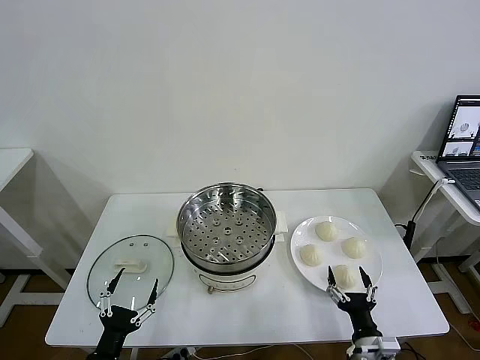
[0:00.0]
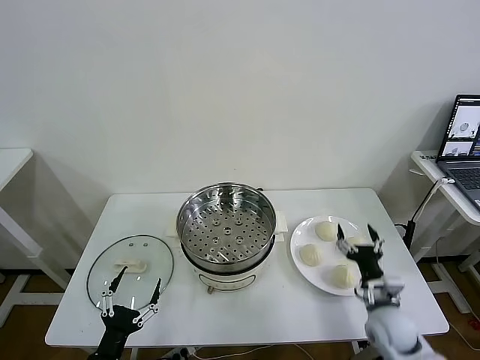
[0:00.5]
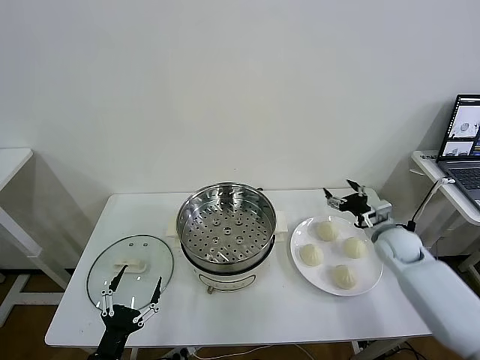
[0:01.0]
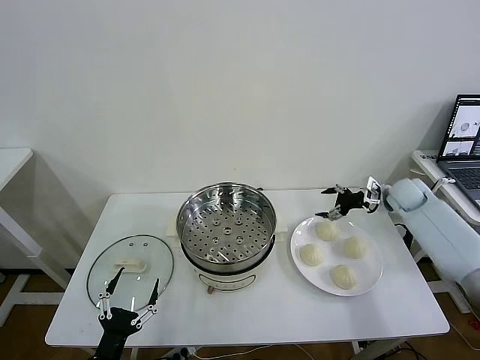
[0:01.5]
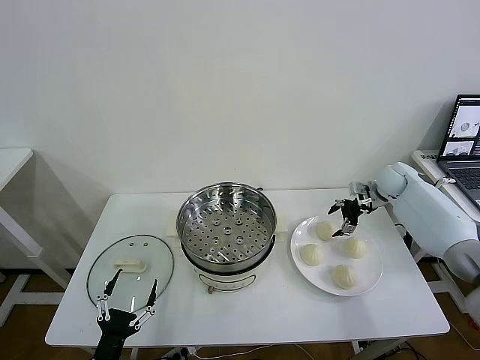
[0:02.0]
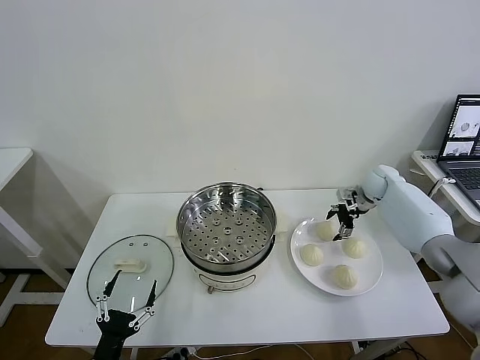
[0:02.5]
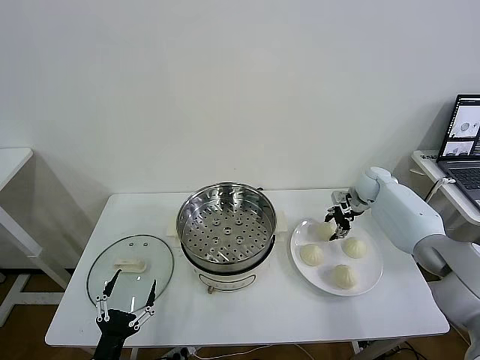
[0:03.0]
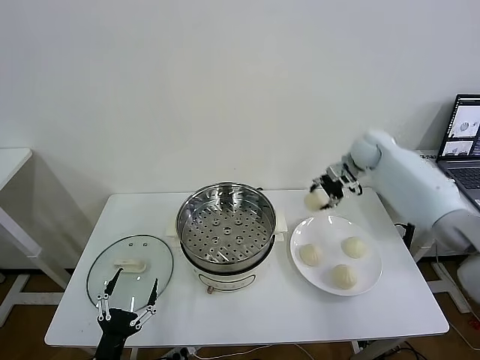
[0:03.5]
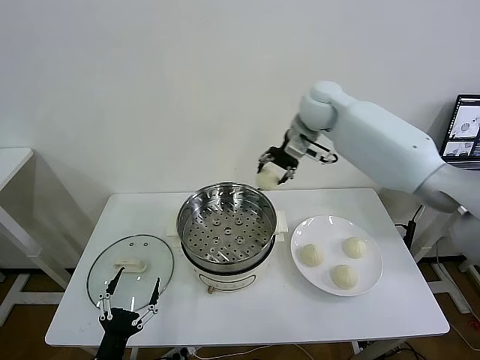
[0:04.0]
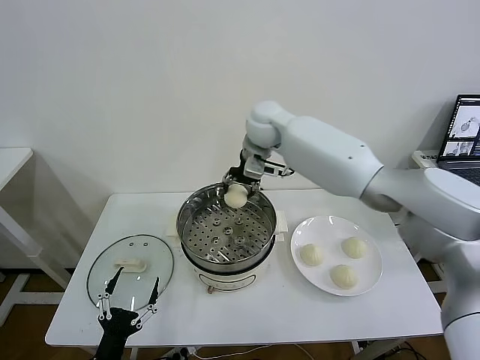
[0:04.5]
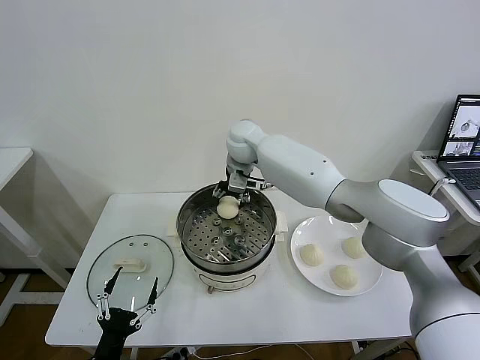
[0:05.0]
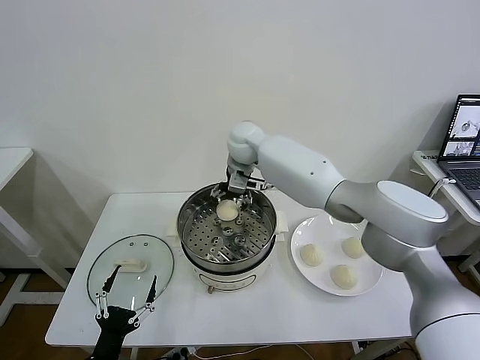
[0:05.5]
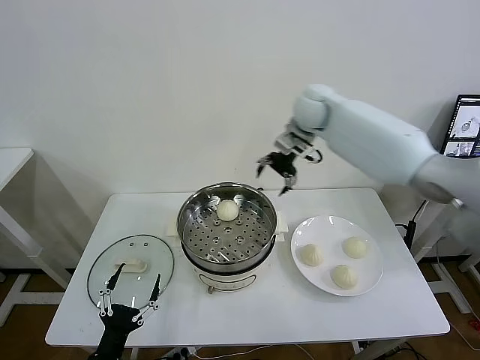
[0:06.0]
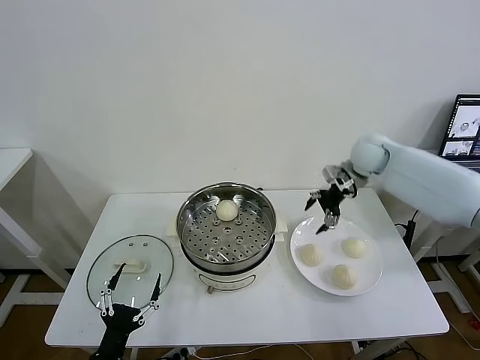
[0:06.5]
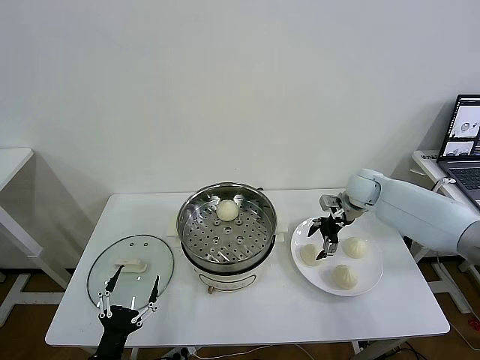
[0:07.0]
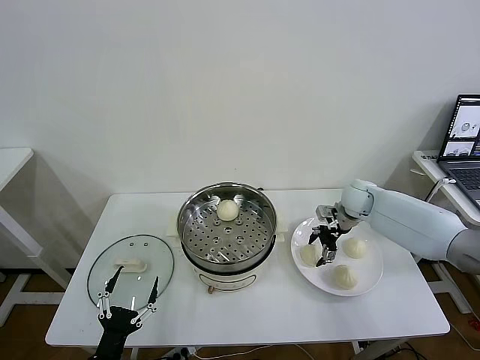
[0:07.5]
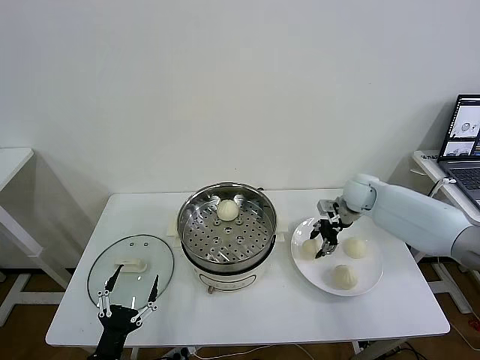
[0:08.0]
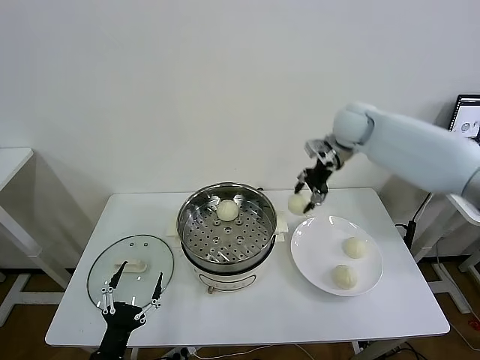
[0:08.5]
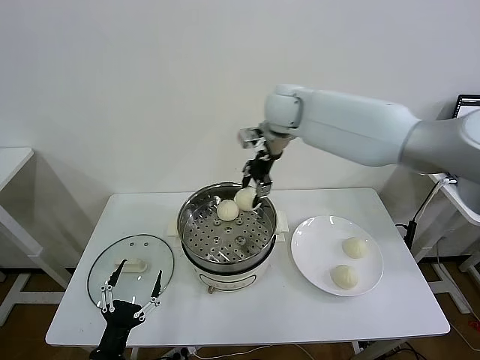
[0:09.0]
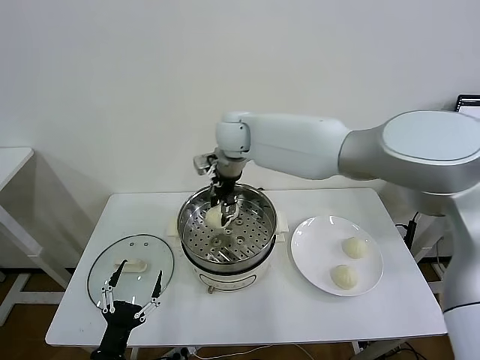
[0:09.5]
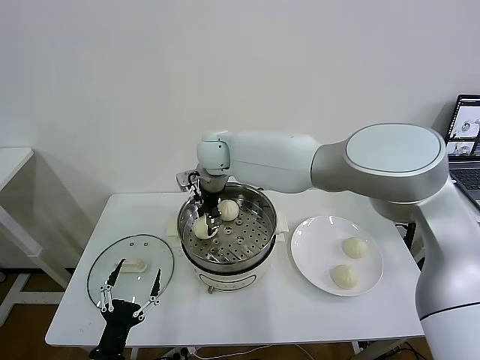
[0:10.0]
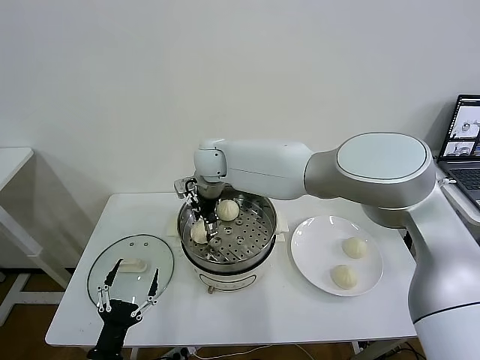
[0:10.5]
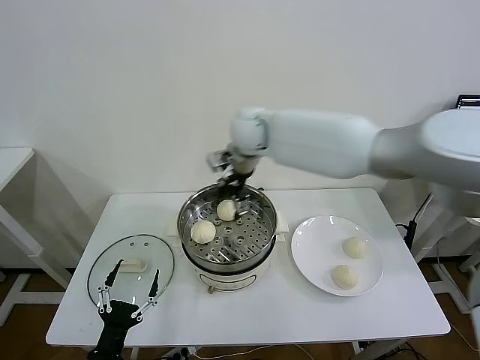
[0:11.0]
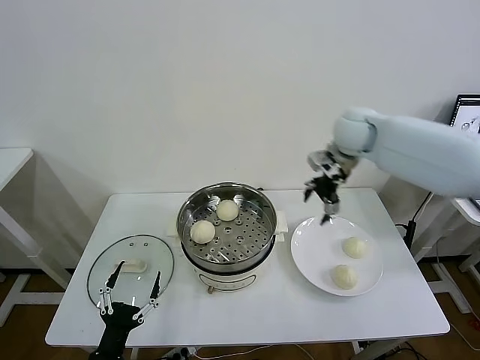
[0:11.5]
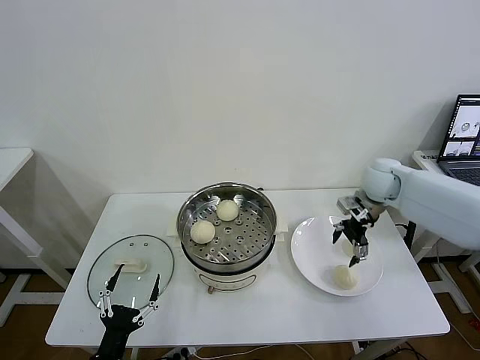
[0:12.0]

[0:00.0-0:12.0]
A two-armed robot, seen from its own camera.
Task of the whole recording: take steamed baozi put them in steamer then cover it.
Step, 0:00.0 to 0:02.5: Grasp the baozi in the plate with right gripper.
Step, 0:03.0 to 0:05.0: Place the baozi on the steamer with right gripper.
Step, 0:05.5 to 0:07.5: Grasp the baozi in the plate with right gripper.
Step, 0:08.0 to 0:10.5: Place the baozi on the steamer with right gripper.
0:02.0 to 0:04.0: The right gripper moves to the left and upward, some 35 cm, and closes.
0:04.0 to 0:06.0: The right gripper goes to the left and returns, some 15 cm each way, and opens its fingers.
0:06.0 to 0:08.0: The right gripper shifts approximately 20 cm downward and to the right, and closes up.
0:08.0 to 0:10.0: The right gripper travels to the left by some 40 cm.
0:10.0 to 0:12.0: The right gripper goes about 40 cm to the right, and opens.

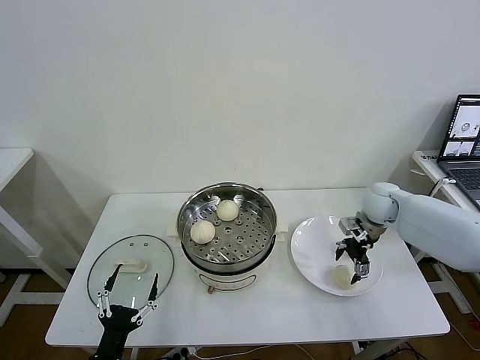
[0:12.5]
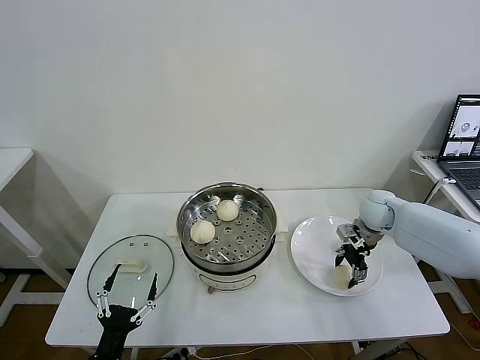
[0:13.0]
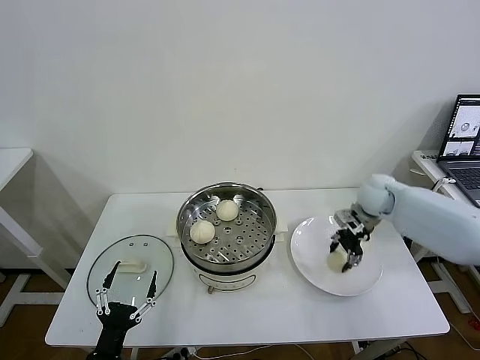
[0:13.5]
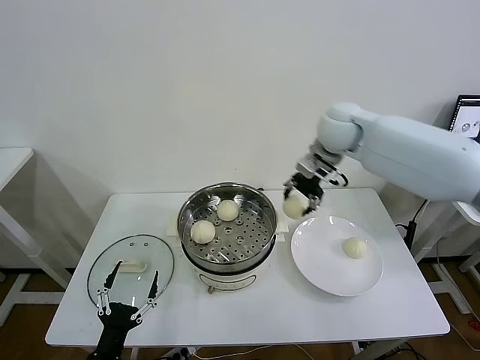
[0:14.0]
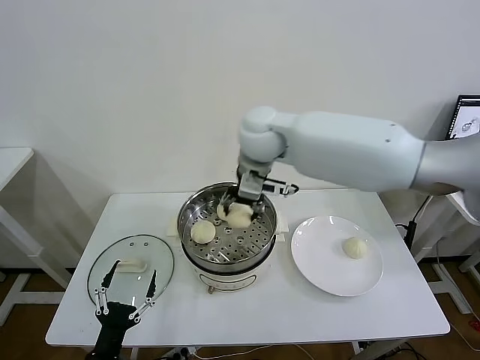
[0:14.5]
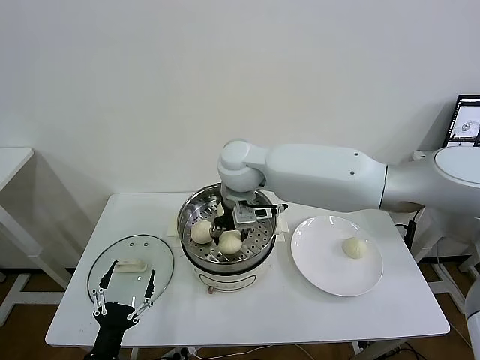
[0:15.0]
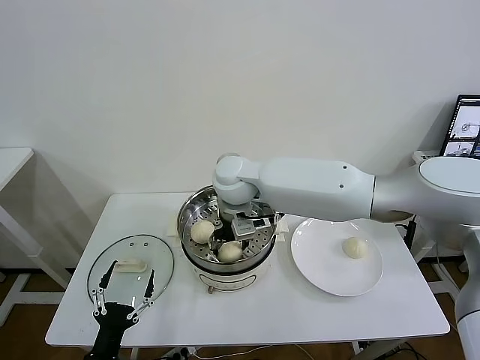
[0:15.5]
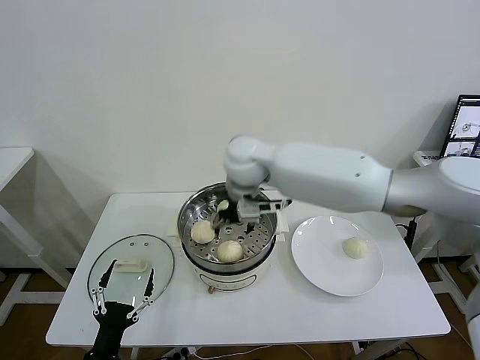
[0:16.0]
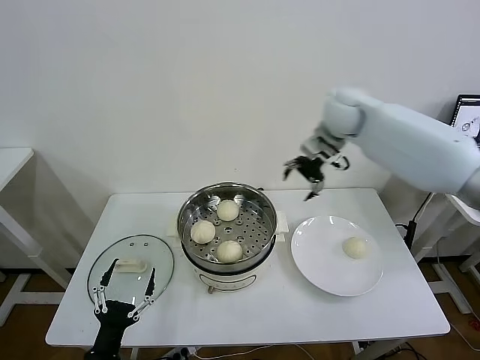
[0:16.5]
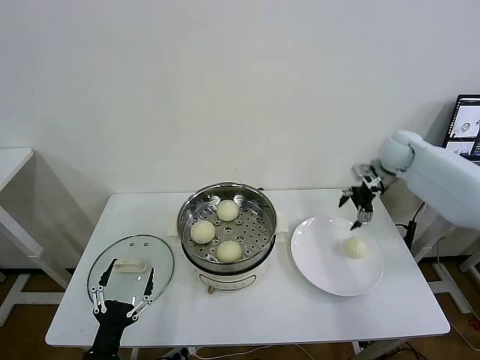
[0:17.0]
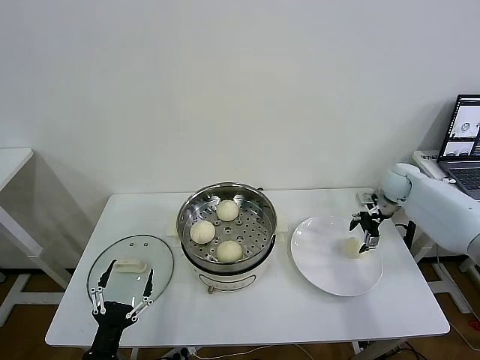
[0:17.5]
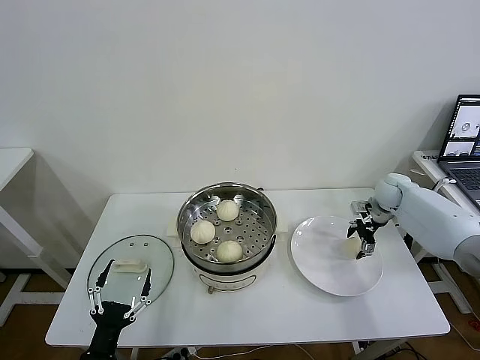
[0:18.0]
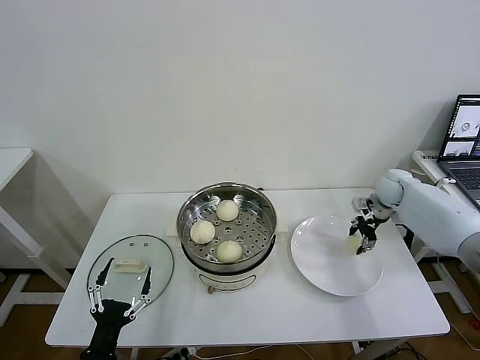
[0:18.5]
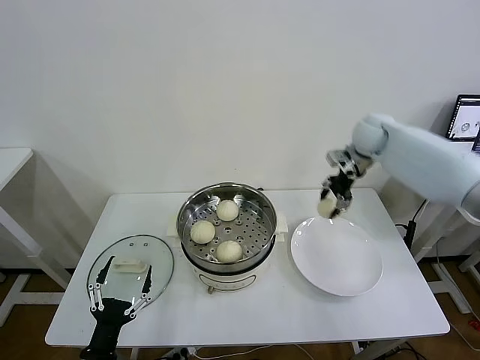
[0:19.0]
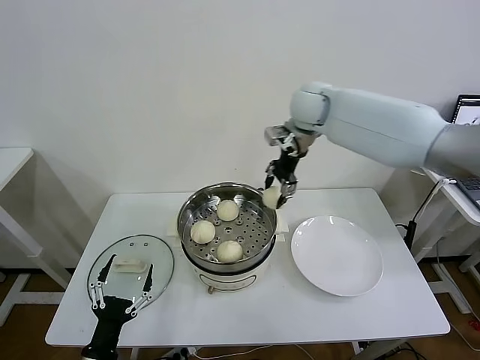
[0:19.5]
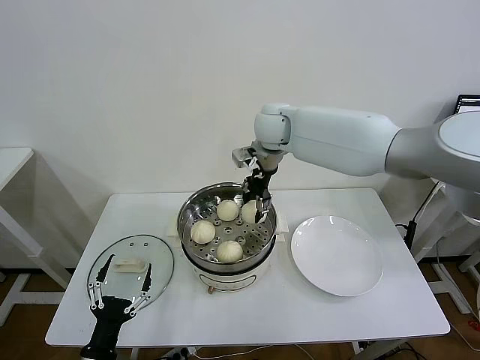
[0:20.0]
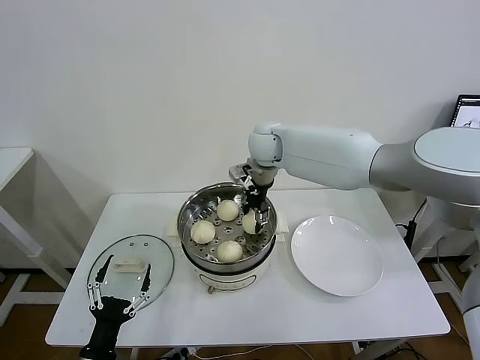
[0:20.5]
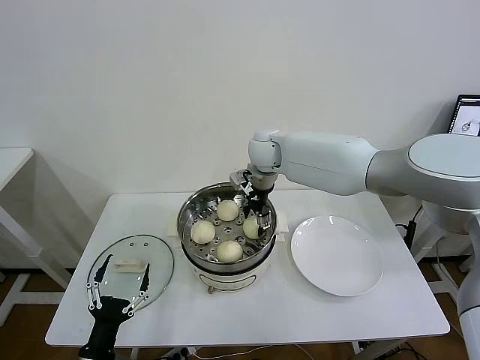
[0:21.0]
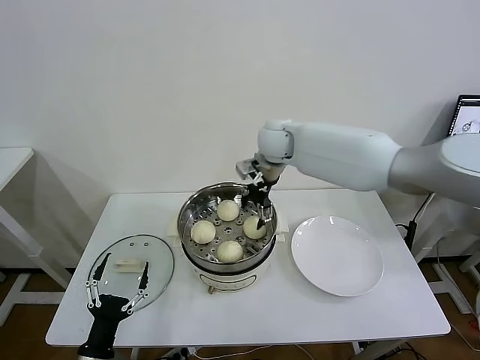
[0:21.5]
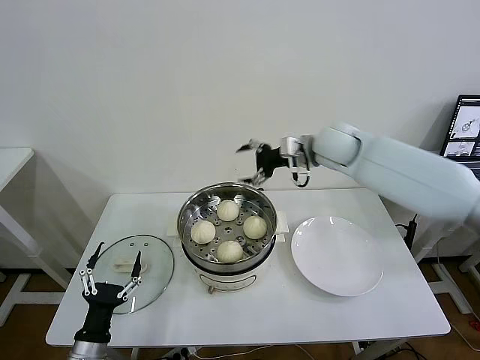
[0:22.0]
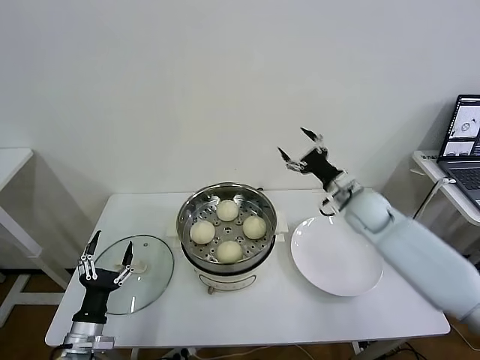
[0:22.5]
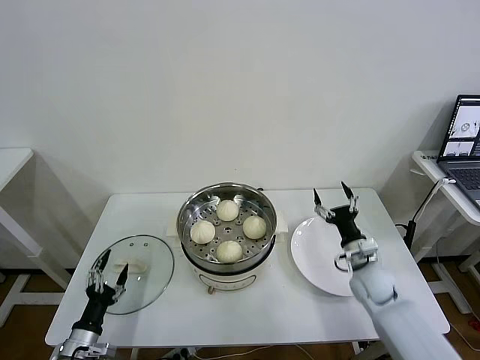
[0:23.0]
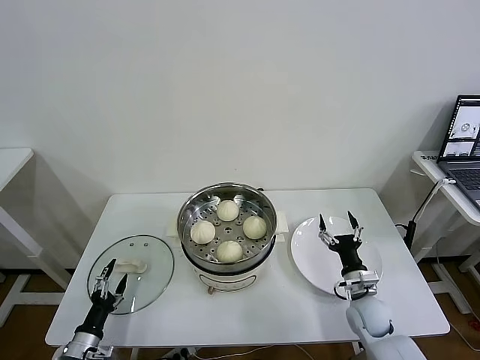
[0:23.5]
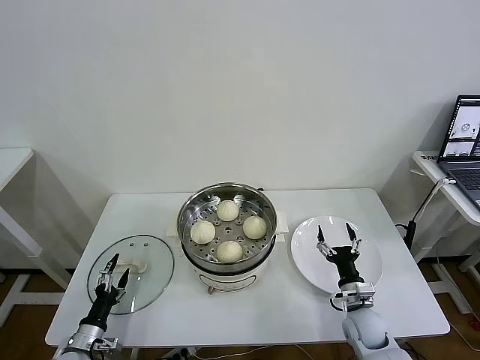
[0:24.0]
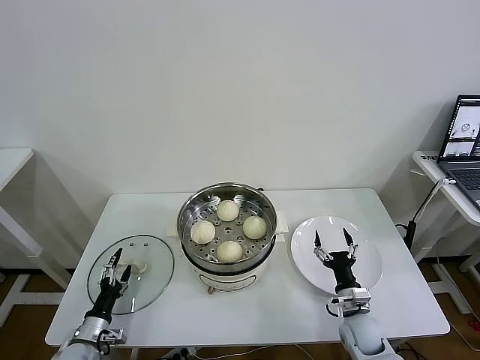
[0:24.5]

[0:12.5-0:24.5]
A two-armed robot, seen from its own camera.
Task of the whole recording: take steamed baozi put them in steamer then cover it.
Step, 0:13.5 to 0:15.5: Place the baozi on the steamer with right gripper.
Step, 0:16.0 to 0:18.0: Grasp the baozi in the plate with right gripper.
Step, 0:18.5 to 0:21.0: Place the baozi on the steamer with right gripper.
0:12.5 to 0:14.5: The right gripper shifts approximately 40 cm to the left and upward, and closes.
0:14.5 to 0:16.5: The right gripper goes approximately 25 cm to the right and forward, and opens its fingers.
0:16.5 to 0:18.5: The right gripper moves downward and to the right, roughly 25 cm, and closes up.
0:18.5 to 0:20.5: The right gripper is displaced to the left by some 35 cm.
0:20.5 to 0:22.5: The left gripper moves forward, approximately 5 cm; the right gripper travels to the right, downward and backward by some 30 cm, and opens its fingers.
0:22.5 to 0:24.5: The left gripper heads downward and to the left, covering some 10 cm. The right gripper goes about 30 cm downward and backward.

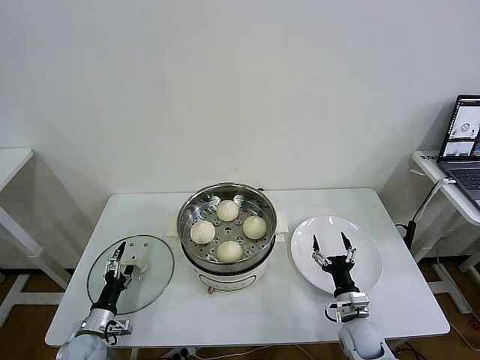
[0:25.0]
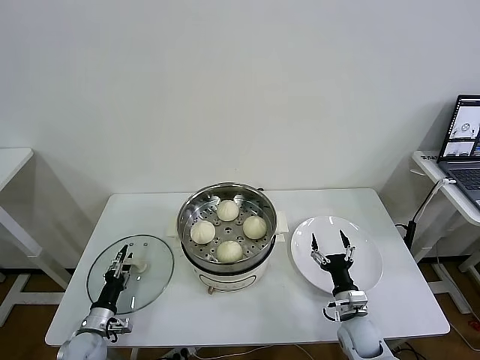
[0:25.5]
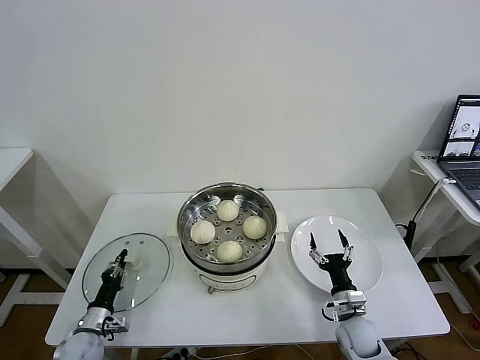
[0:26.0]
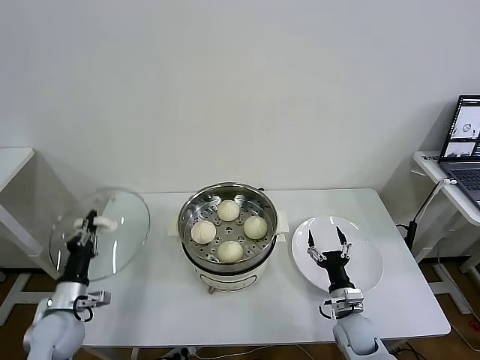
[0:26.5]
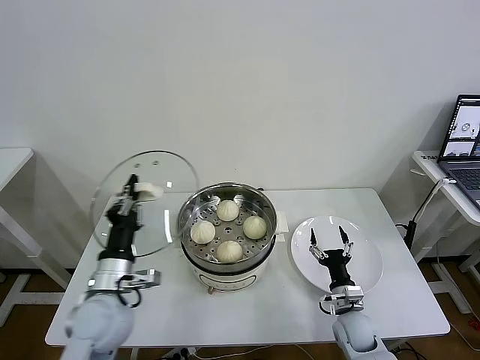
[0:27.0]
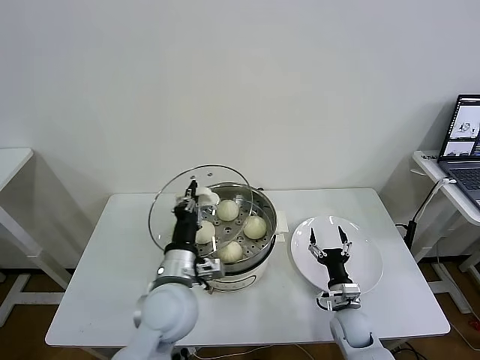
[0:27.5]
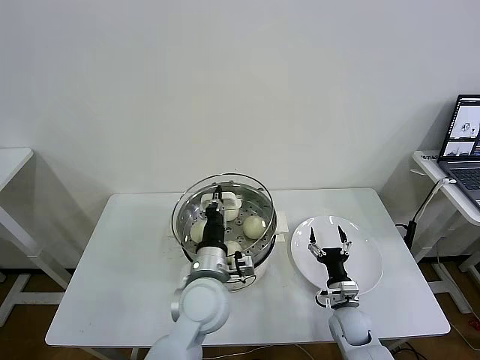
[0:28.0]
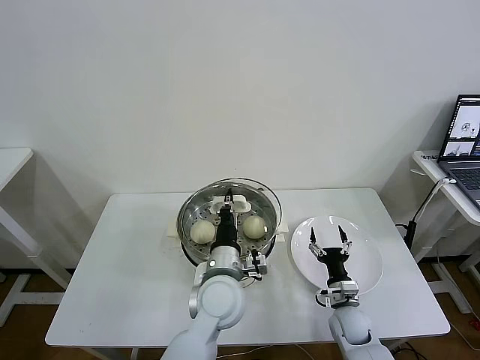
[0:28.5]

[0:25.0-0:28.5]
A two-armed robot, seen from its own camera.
Task of the whole recording: take steamed baozi put them in steamer then cover it.
0:25.0 to 0:27.0: The left gripper moves upward and to the right, some 25 cm, and closes.
0:27.0 to 0:28.5: The left gripper goes roughly 20 cm to the right.
